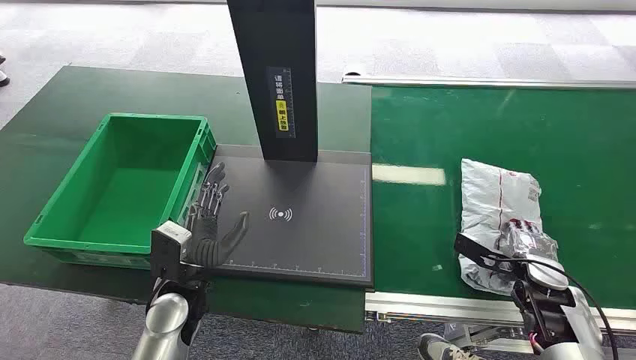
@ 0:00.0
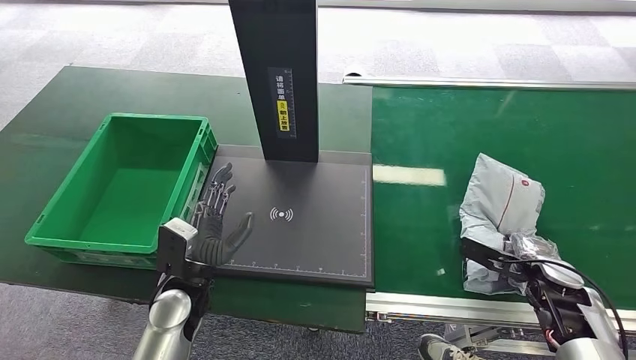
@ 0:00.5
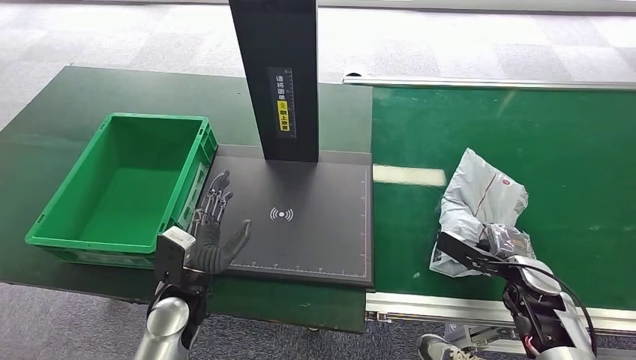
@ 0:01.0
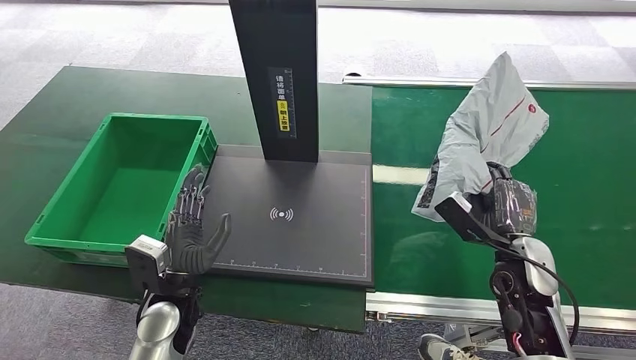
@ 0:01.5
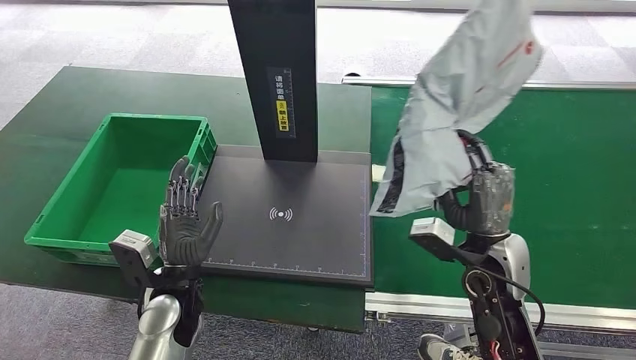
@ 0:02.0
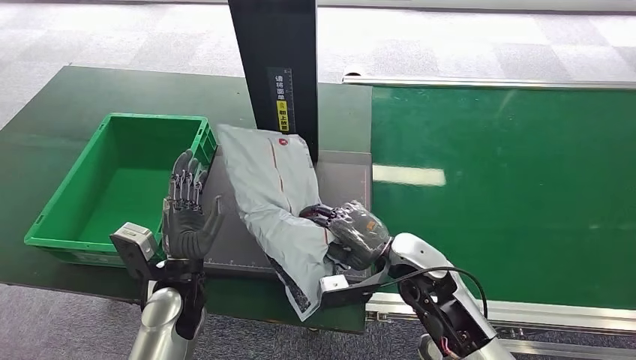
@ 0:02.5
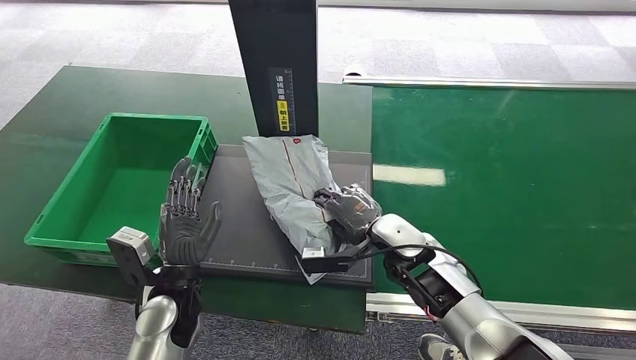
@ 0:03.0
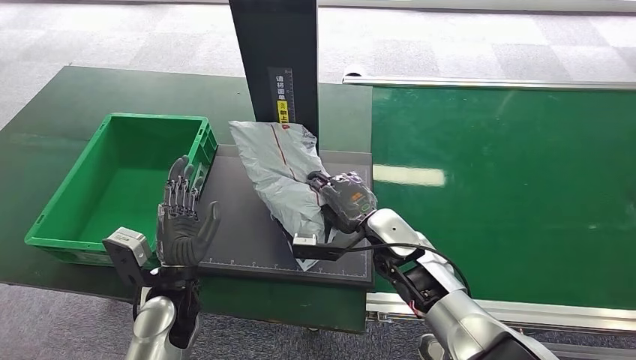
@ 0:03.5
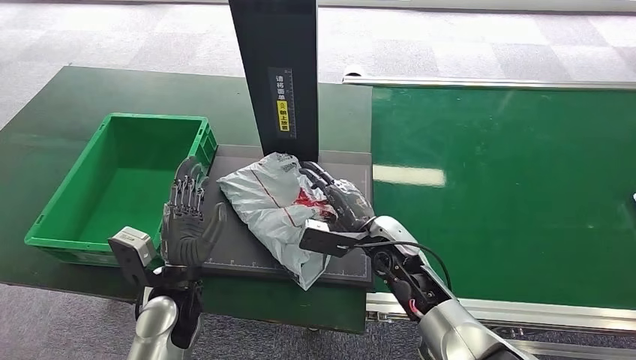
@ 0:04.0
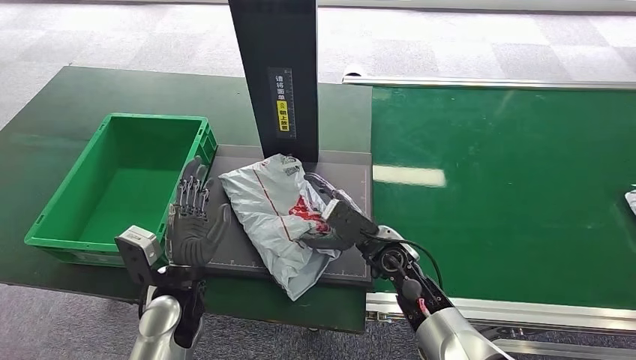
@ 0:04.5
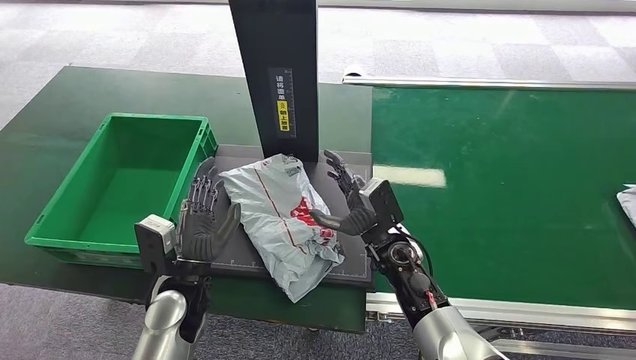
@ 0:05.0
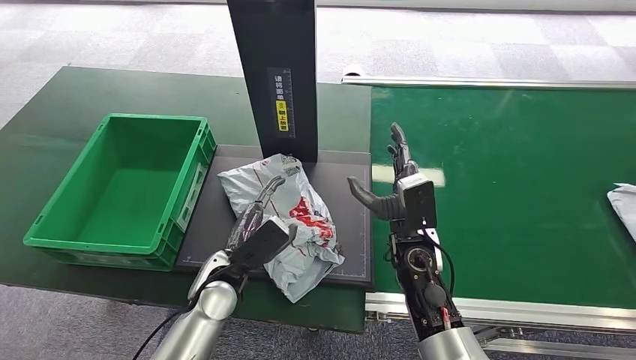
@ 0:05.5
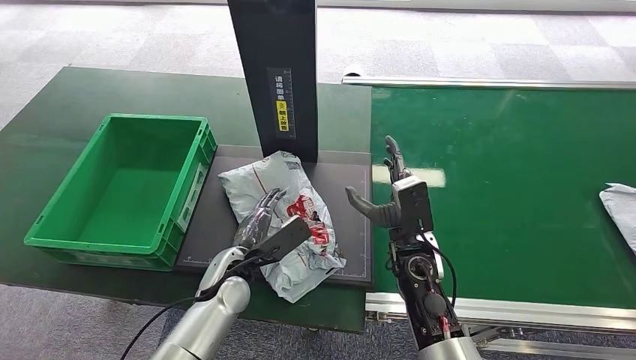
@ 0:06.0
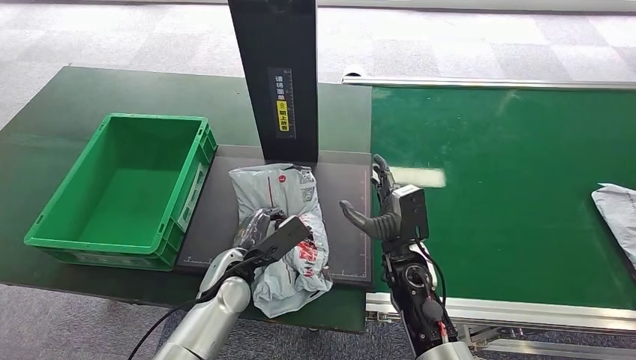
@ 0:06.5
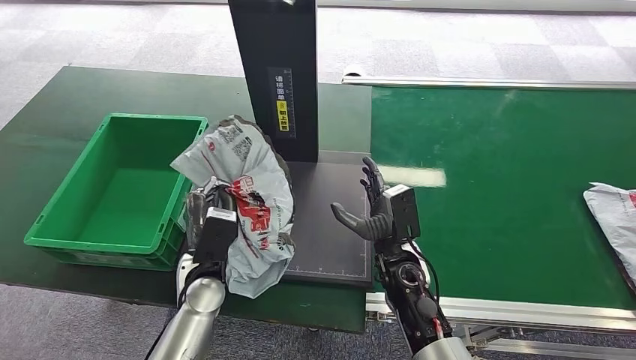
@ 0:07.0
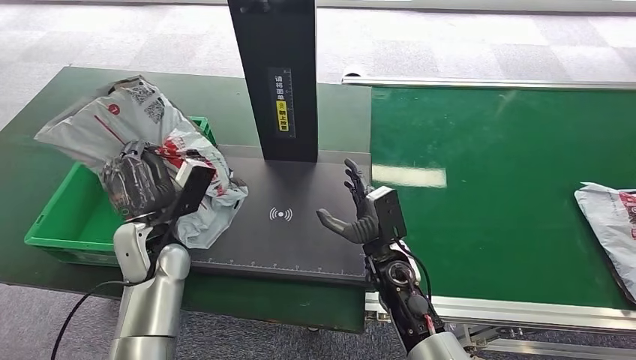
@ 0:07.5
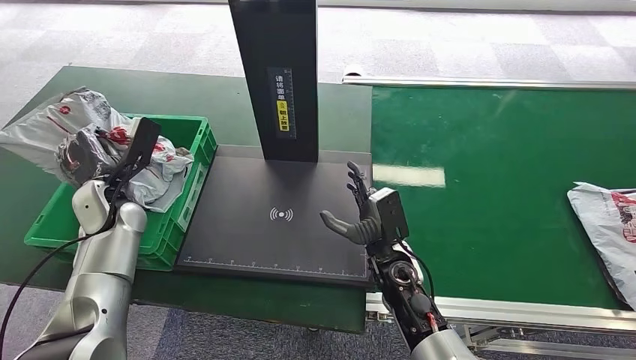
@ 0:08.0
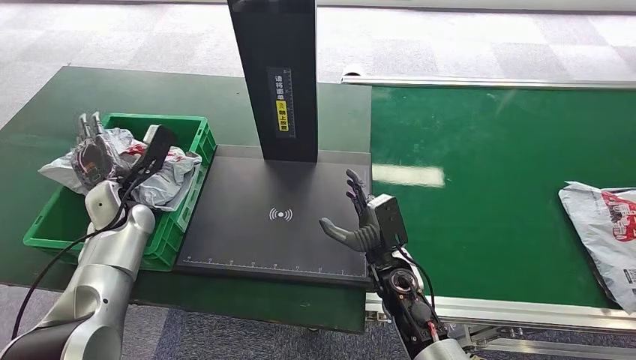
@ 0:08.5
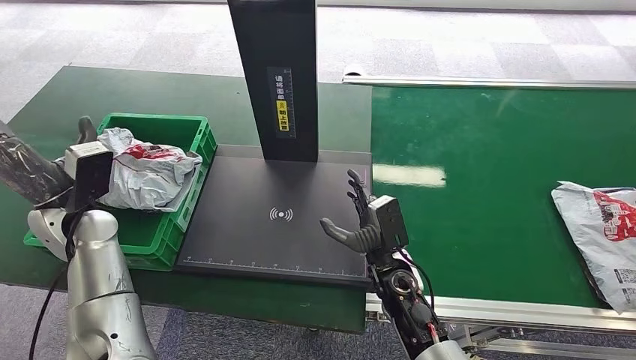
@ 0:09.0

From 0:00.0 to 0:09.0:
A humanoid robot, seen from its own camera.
Step, from 0:00.0 to 0:01.5: Pick up the package from the conveyor belt.
Step, from 0:02.0 to 0:05.5: Place the package onto the inbound machine.
Step, from 0:06.0 to 0:07.5: Pick up the package from the inbound machine.
Step, from 0:08.0 to 0:09.0: Place the package into the parcel locker.
